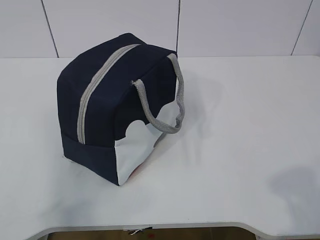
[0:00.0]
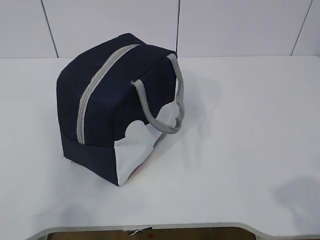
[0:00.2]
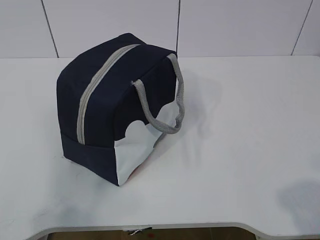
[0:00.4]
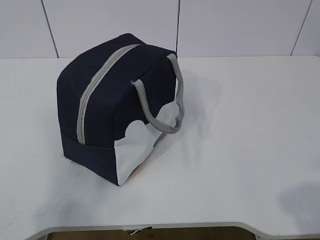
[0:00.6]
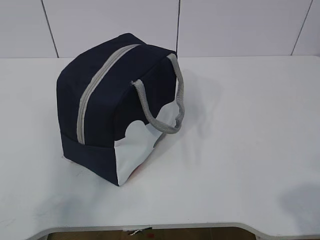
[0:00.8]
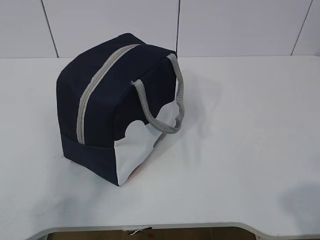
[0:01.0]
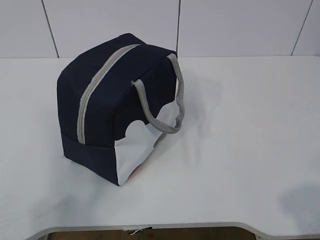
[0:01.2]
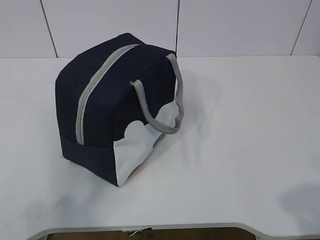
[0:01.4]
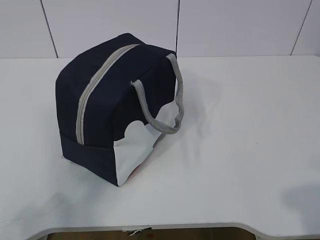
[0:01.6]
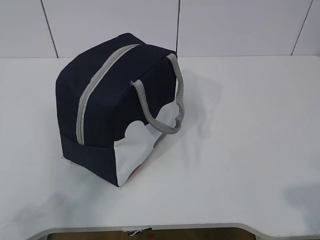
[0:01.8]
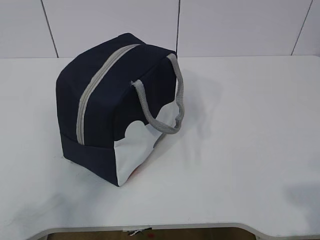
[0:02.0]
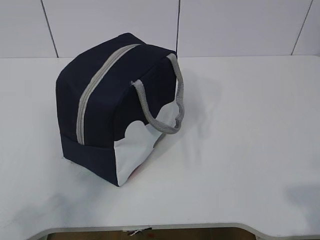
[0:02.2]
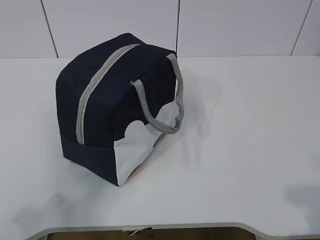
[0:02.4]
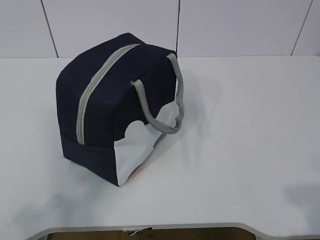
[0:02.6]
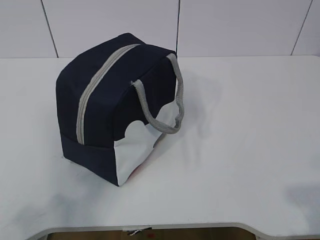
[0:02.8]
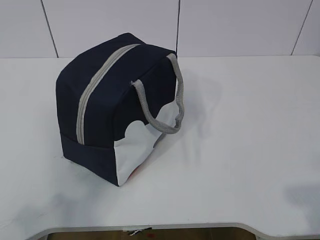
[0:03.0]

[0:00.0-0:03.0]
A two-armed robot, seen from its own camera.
0:00.0 to 0:01.6: The left gripper ends up some 5 cm from where it was.

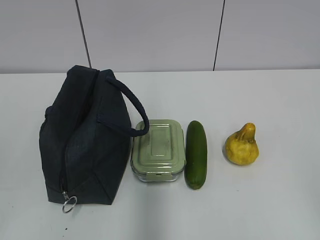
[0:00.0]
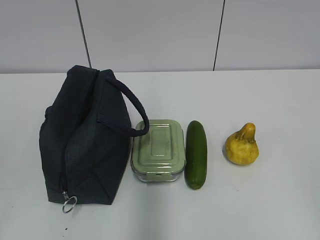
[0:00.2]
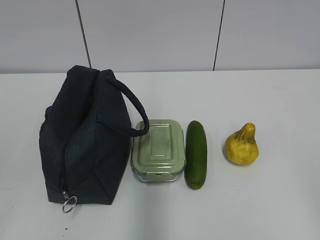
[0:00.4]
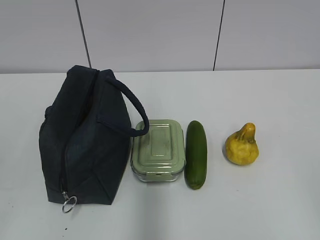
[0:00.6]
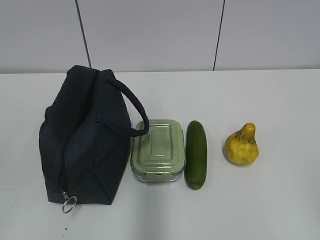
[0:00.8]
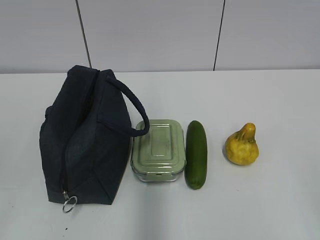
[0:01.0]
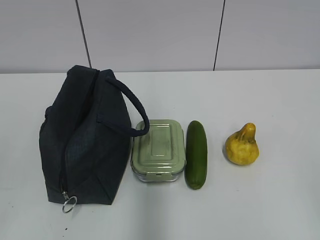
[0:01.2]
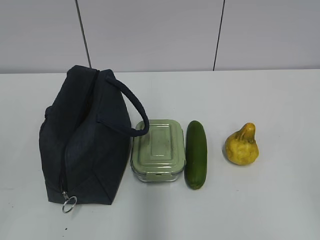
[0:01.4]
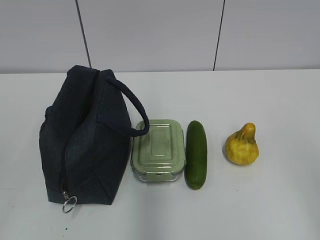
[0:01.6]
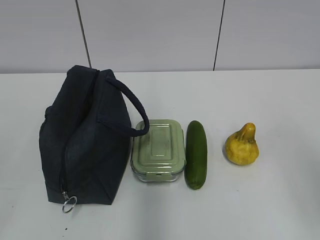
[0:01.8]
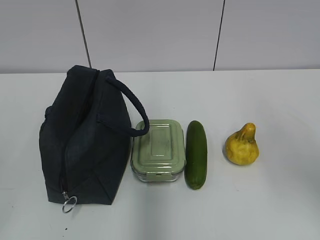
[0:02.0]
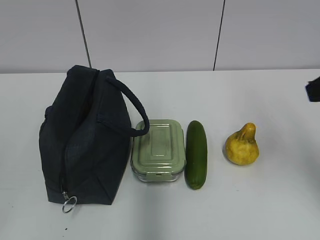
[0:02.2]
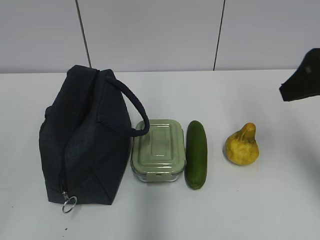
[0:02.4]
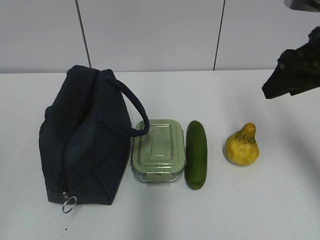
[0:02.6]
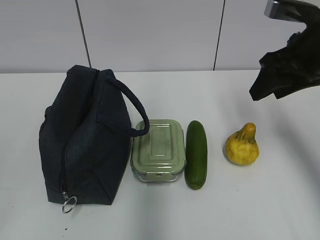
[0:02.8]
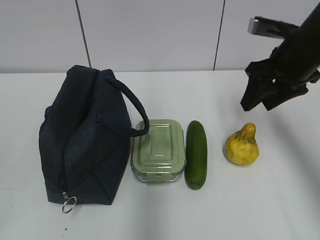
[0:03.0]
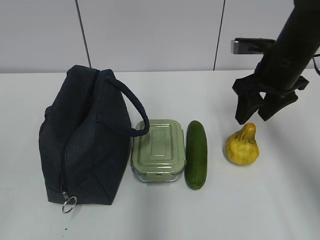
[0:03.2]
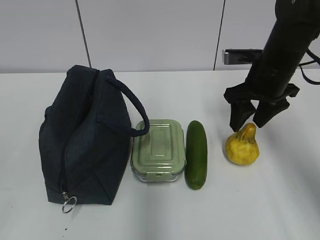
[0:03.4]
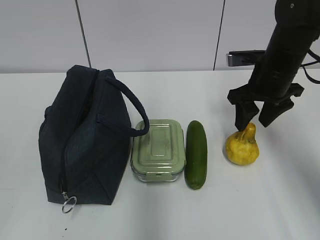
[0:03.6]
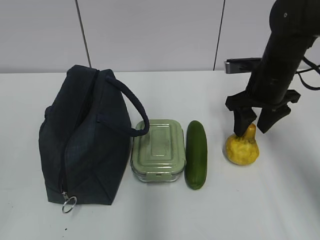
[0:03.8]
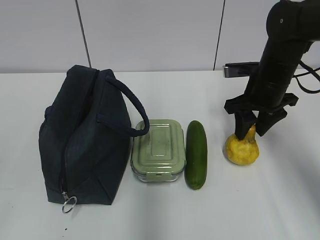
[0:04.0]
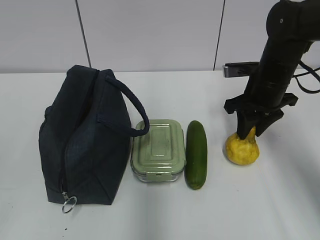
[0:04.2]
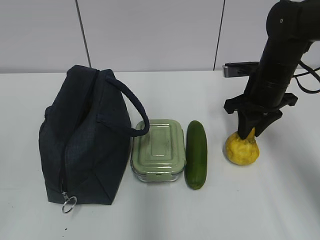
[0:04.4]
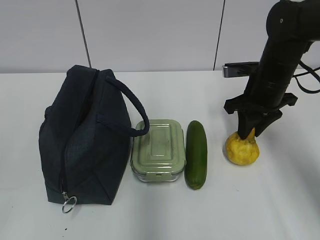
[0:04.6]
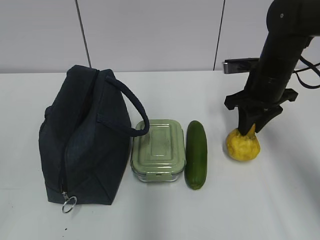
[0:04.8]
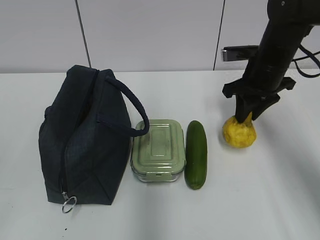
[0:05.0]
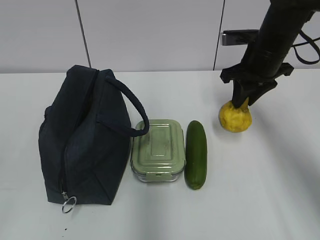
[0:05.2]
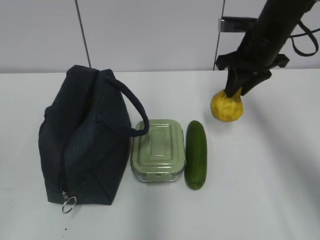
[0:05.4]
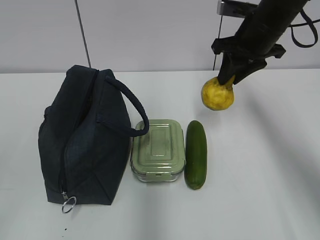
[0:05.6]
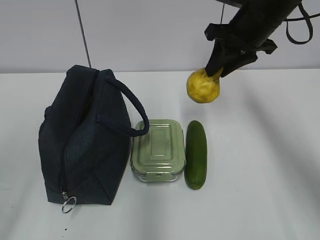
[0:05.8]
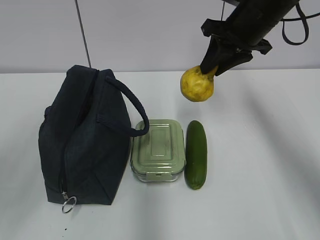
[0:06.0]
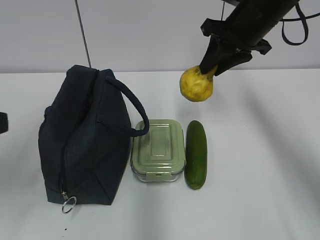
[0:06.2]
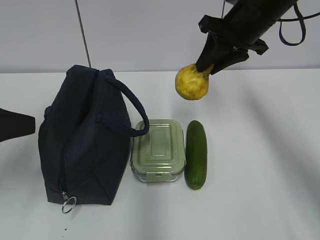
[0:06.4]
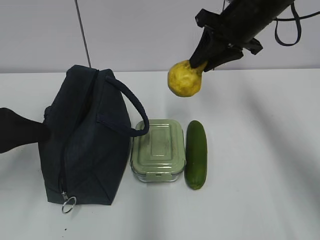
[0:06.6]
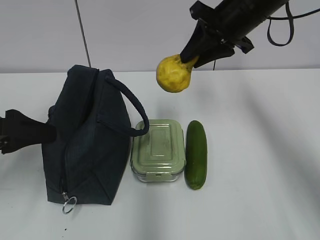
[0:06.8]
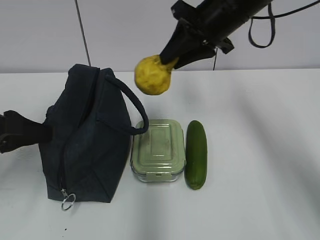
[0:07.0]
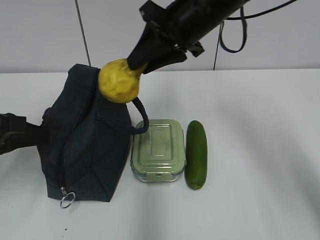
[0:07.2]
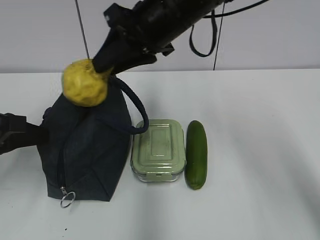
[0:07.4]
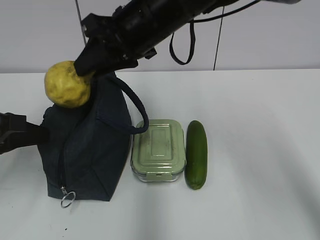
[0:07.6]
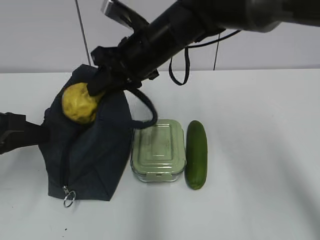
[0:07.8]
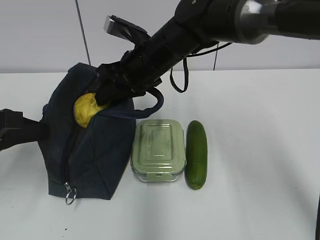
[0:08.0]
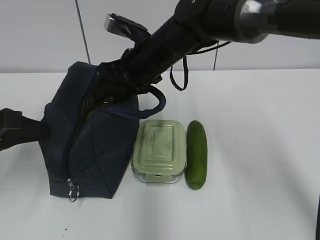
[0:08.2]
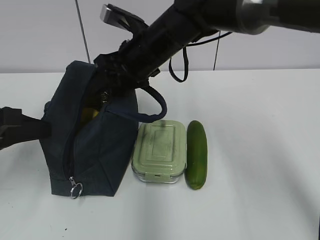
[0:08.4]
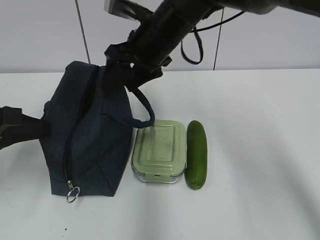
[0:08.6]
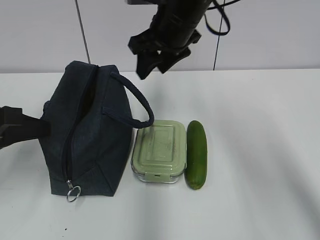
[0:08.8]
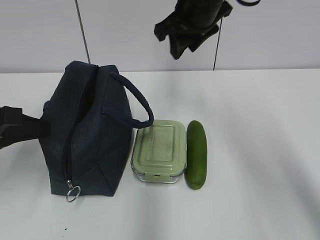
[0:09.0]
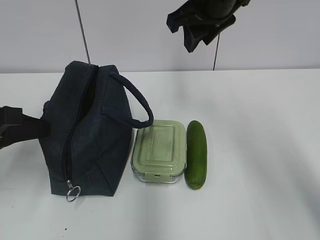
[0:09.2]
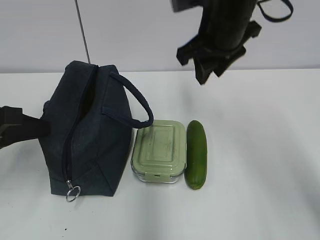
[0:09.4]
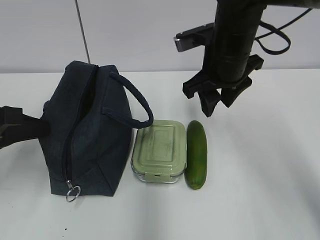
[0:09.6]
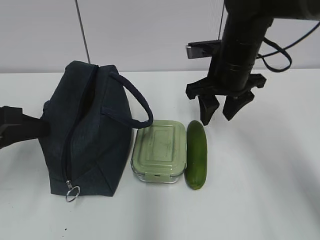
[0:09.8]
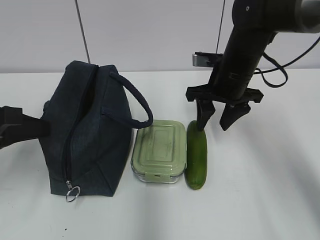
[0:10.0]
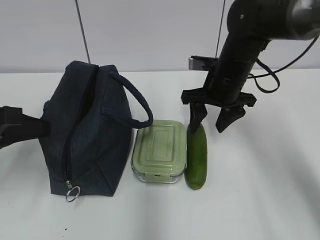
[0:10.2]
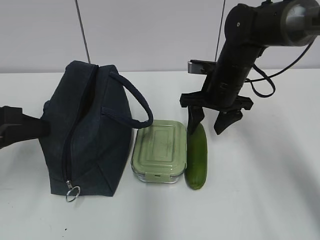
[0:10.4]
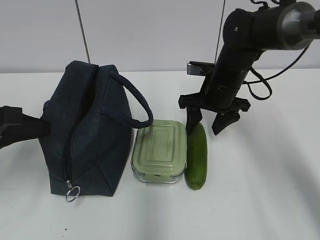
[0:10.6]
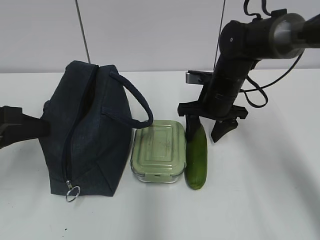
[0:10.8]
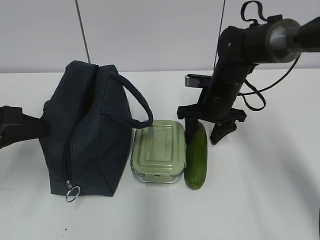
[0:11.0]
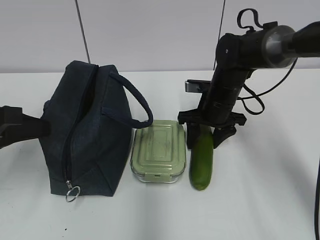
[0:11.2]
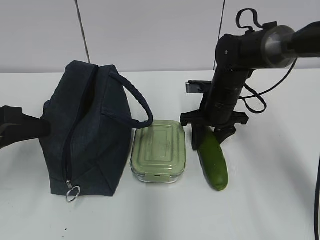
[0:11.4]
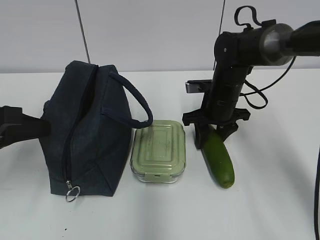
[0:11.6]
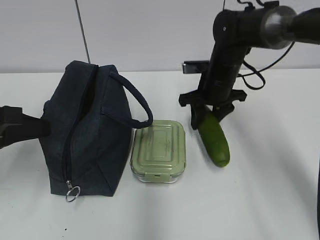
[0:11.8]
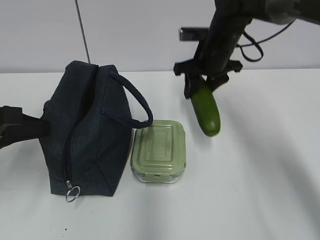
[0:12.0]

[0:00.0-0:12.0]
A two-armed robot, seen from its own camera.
Step, 0:00.0 to 0:04.6: Grab the pear with your right hand.
Step, 0:04.8 to 0:06.4: Grab the lunch bag with your left hand.
Step, 0:06.6 to 0:08.2: Place it into the bag with your right hand.
Step, 0:08.4 to 0:11.6: Grab the cucumber with your right hand.
0:01.6 to 0:03.0: The right gripper is displaced forward by about 35 cm.
0:03.0 to 0:04.4: The right gripper heads downward, covering some 5 cm, and closes.
0:04.4 to 0:06.0: The left gripper moves forward, approximately 10 cm; the right gripper goes roughly 10 cm upward.
0:06.0 to 0:07.6: The right gripper goes about 15 cm to the left, while the left gripper shifts roughly 15 cm forward and downward, and closes up.
0:07.6 to 0:09.0: The right gripper travels to the right by roughly 5 cm, and goes downward and returns, approximately 5 cm each way.
0:09.0 to 0:10.4: The right gripper moves downward, about 15 cm.
0:10.4 to 0:12.0: The right gripper travels upward and forward by approximately 10 cm.

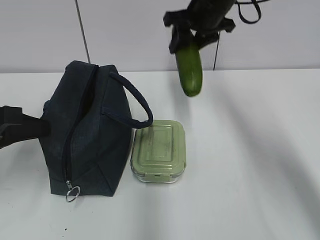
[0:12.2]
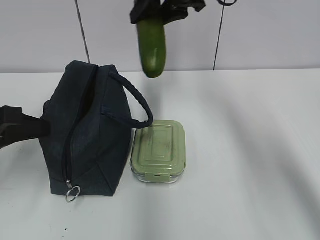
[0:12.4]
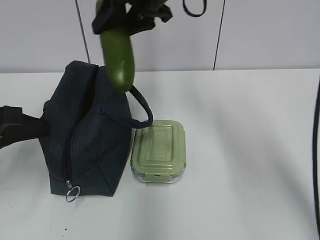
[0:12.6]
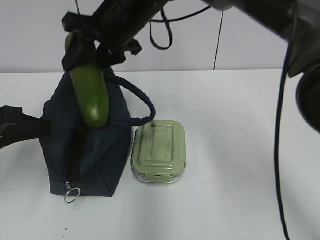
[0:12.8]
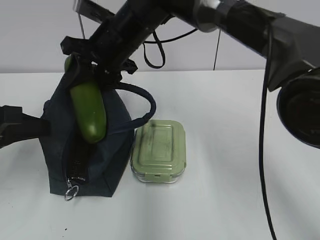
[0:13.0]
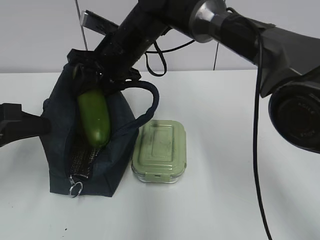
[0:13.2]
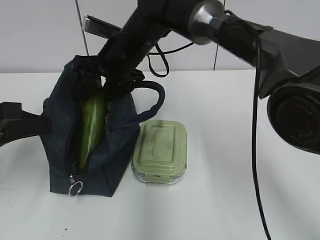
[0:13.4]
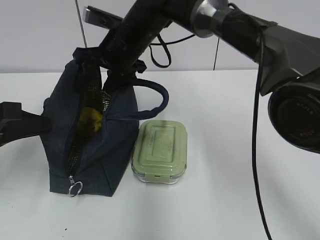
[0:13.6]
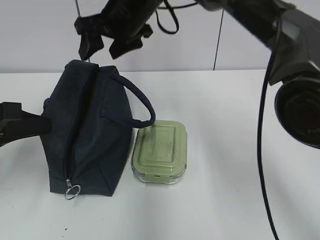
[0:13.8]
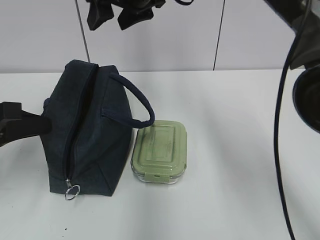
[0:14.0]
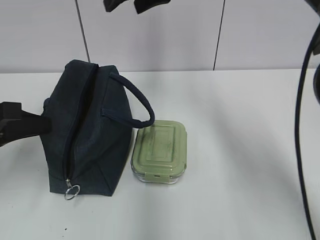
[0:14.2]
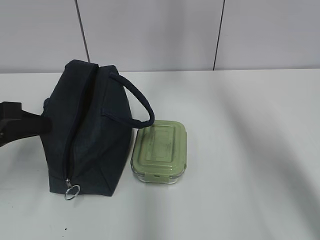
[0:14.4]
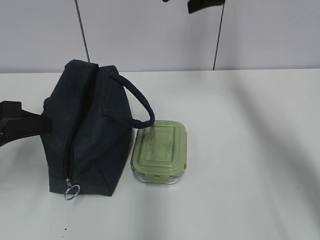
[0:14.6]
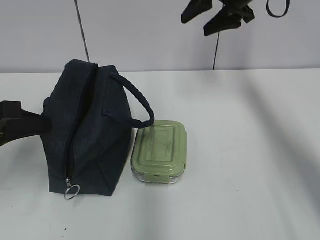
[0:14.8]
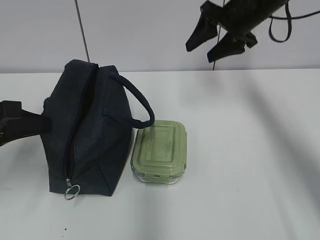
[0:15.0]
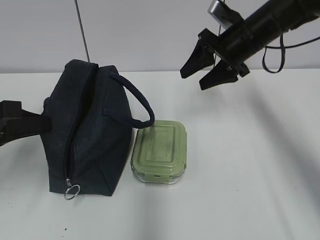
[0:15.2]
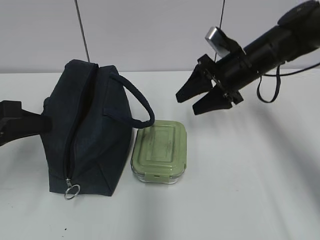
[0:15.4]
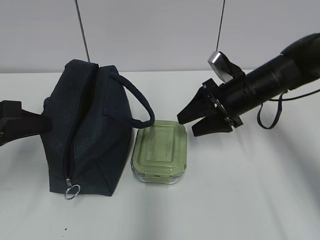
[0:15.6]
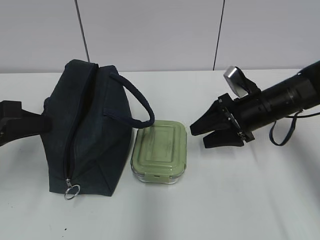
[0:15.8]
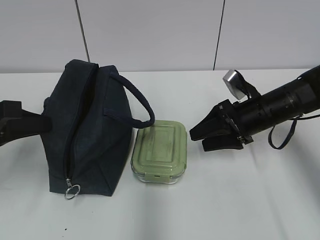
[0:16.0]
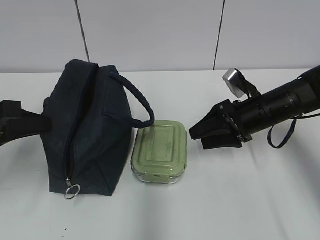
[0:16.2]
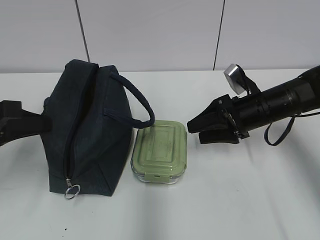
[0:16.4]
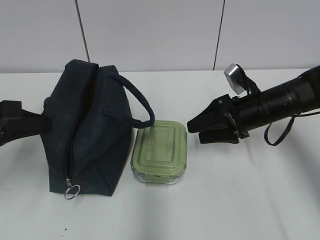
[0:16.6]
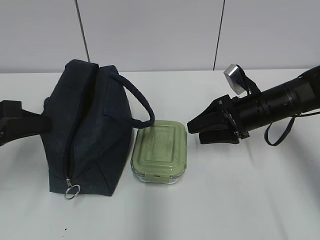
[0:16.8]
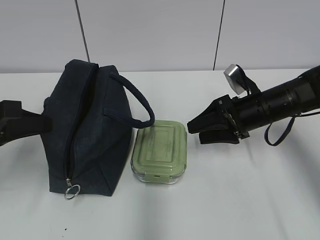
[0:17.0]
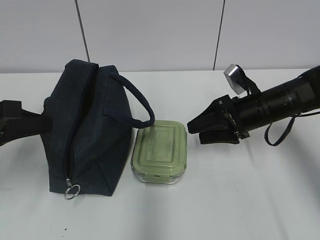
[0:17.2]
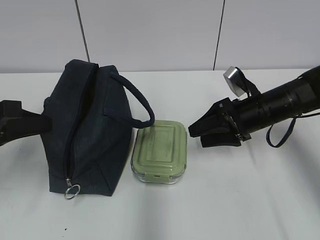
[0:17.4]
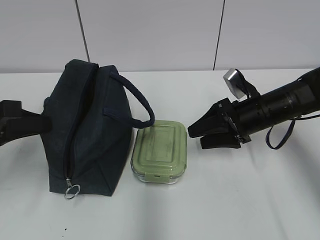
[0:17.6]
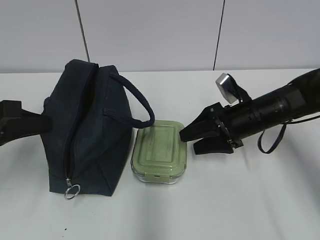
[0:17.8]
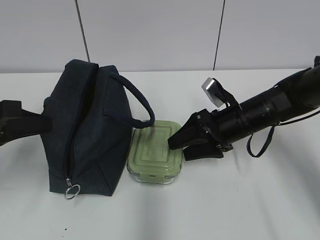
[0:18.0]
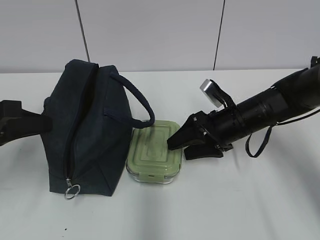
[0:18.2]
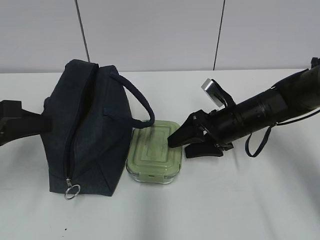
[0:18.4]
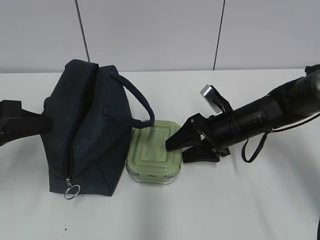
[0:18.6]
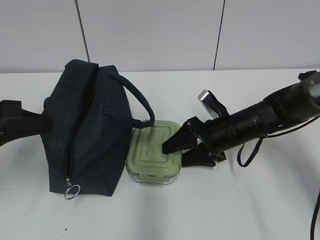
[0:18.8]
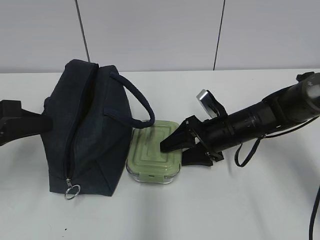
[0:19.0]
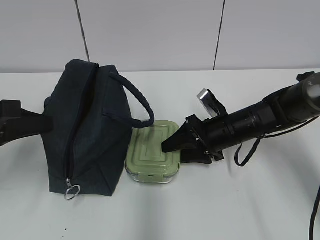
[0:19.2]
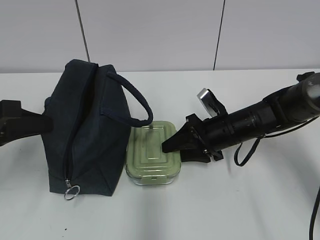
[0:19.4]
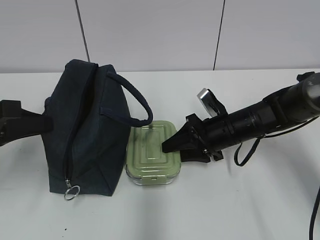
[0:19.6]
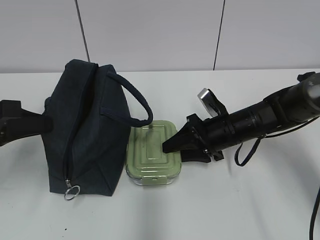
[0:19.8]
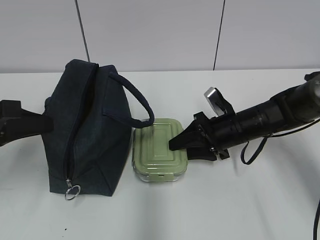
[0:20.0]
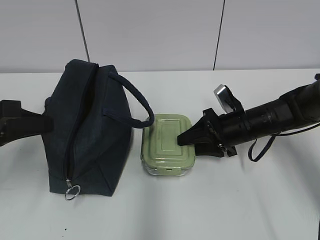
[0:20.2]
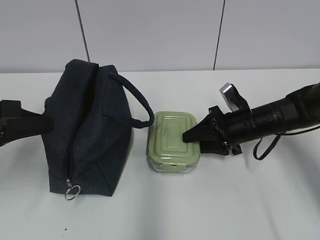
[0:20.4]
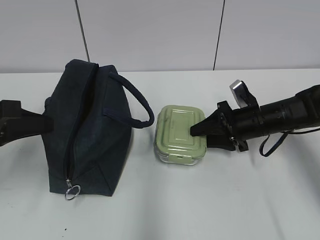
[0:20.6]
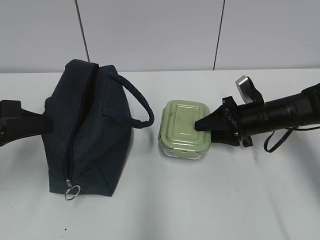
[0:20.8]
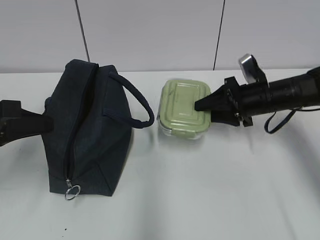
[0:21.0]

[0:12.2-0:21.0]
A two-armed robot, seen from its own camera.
Step, 0:12.2 to 0:13.4: Place it into the bag with your right hand.
Step, 0:13.6 to 0:20.4: Grab the lunch box with your right hand.
0:12.2 to 0:13.6: The right gripper moves to the left and downward, roughly 15 cm, and opens its fingers.
0:13.6 to 0:15.2: The right gripper goes roughly 20 cm to the right.
0:15.2 to 0:16.6: The right gripper moves downward and backward, about 10 cm.
0:16.6 to 0:18.0: There are only small adjustments of the grippers.
0:18.0 to 0:19.6: The right gripper closes up.
0:19.6 to 0:21.0: The right gripper heads to the right and upward, covering roughly 10 cm.
